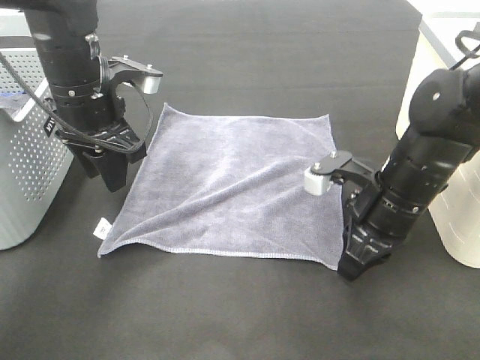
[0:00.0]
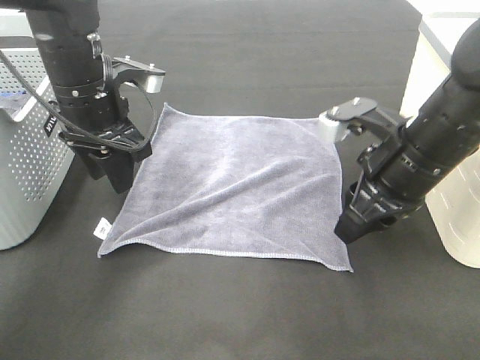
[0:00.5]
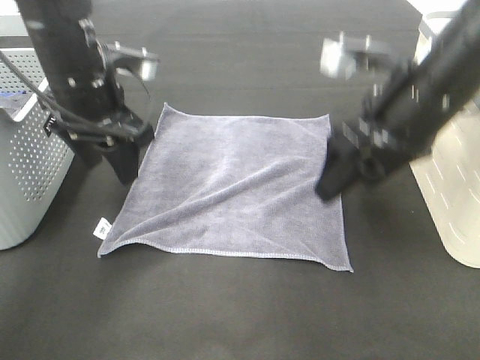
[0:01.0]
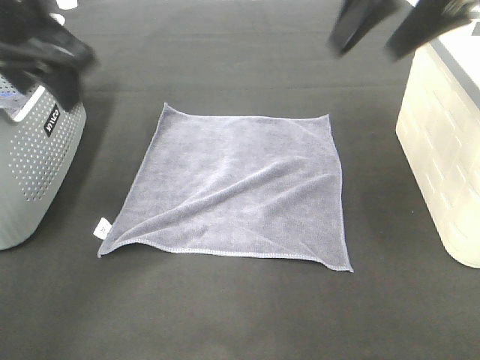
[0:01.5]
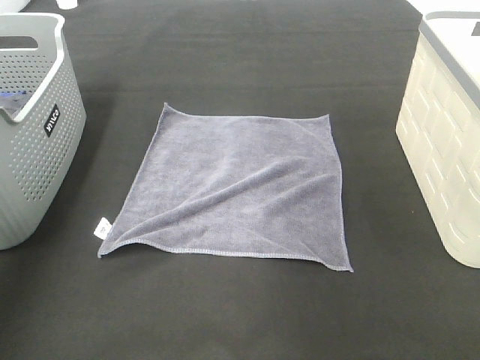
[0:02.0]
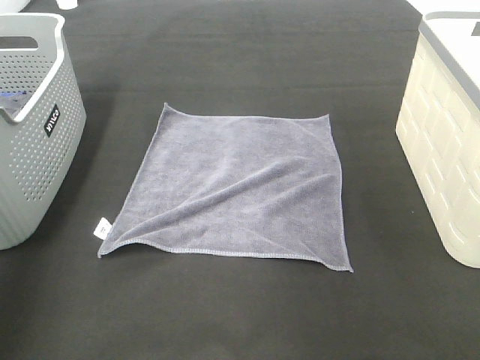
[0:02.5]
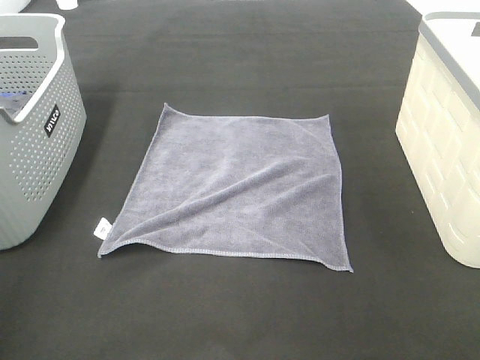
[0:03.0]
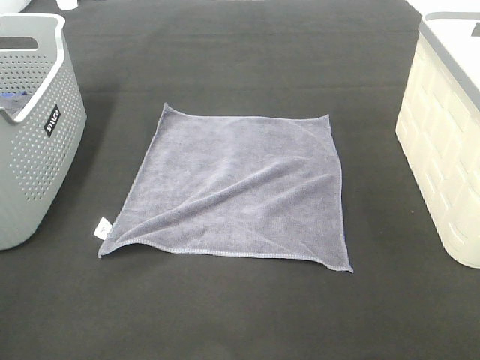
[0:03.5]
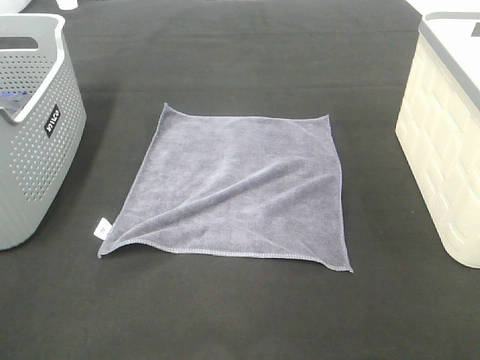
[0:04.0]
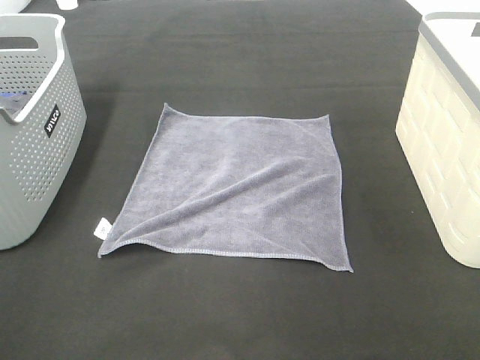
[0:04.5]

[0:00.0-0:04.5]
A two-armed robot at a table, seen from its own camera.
Task of the whole recording: Remove the towel and place it.
0:00.0 to 0:02.0: The right gripper moves upward, approximately 30 cm, and opens its fingers. The left gripper travels upward, to the left and backward by approximately 30 cm.
0:02.0 to 0:04.5: The left gripper travels backward by approximately 30 cm. The right gripper shifts roughly 30 cm backward and downward.

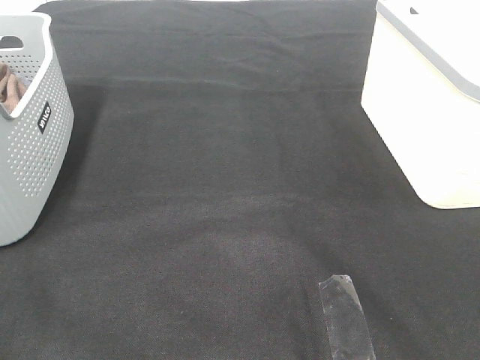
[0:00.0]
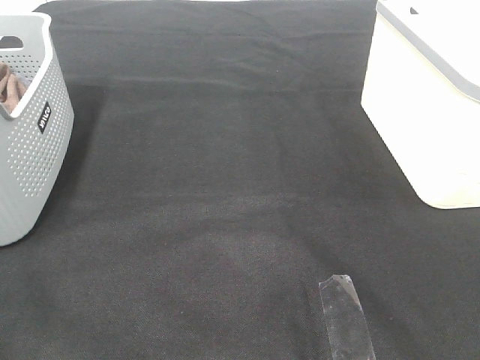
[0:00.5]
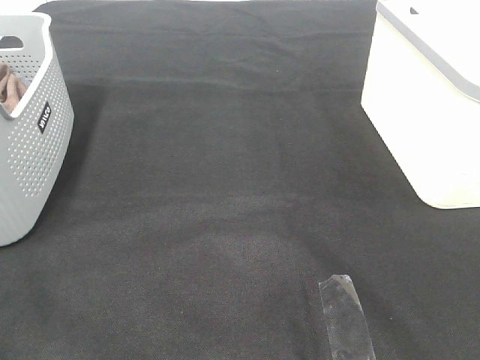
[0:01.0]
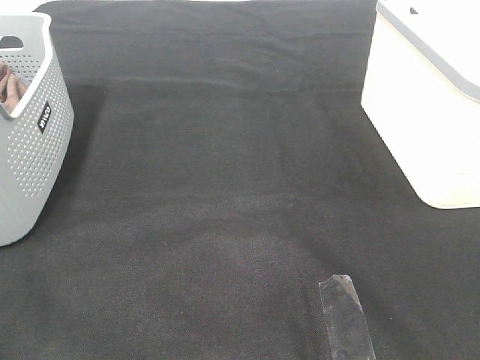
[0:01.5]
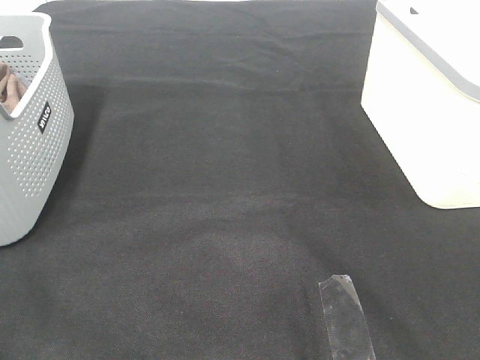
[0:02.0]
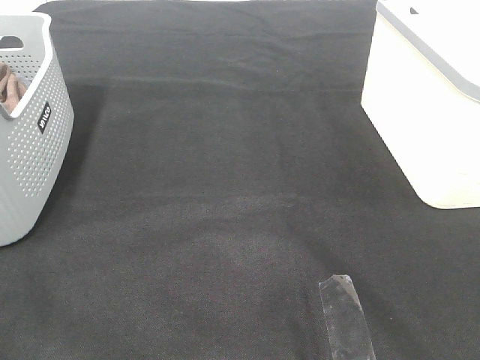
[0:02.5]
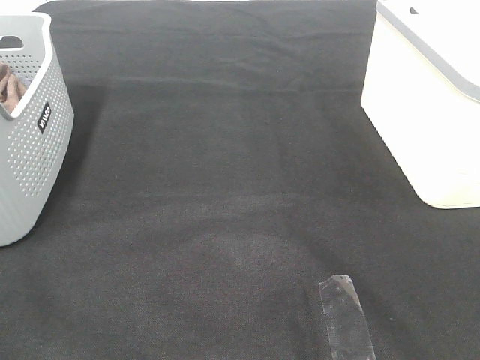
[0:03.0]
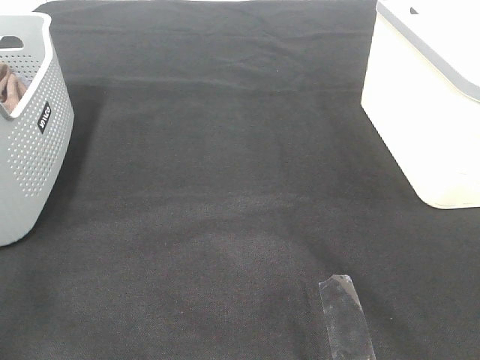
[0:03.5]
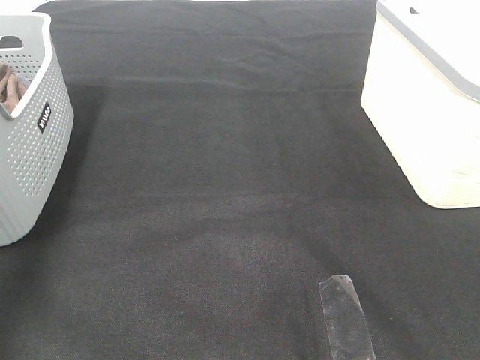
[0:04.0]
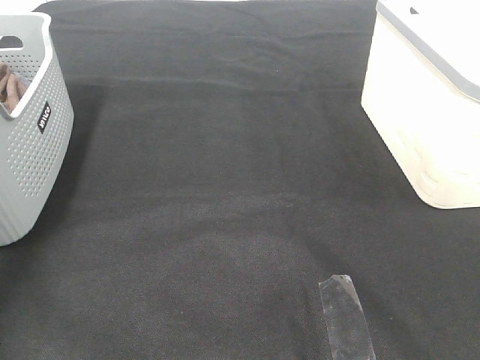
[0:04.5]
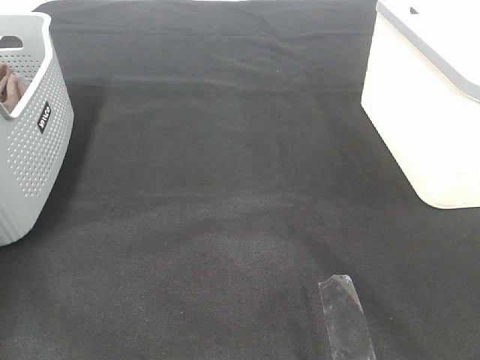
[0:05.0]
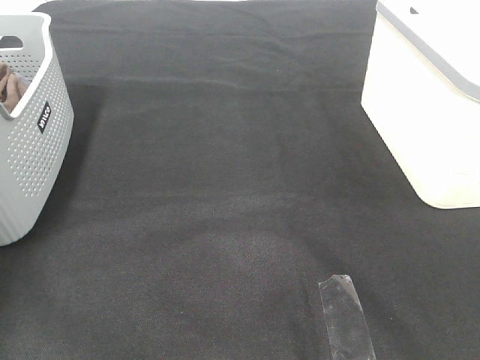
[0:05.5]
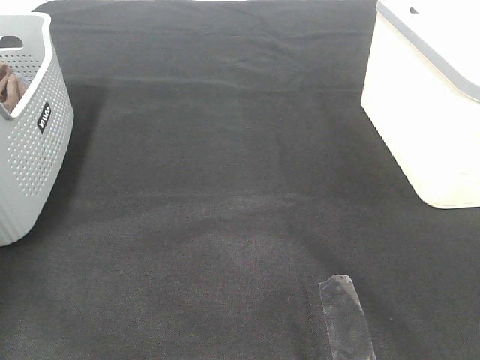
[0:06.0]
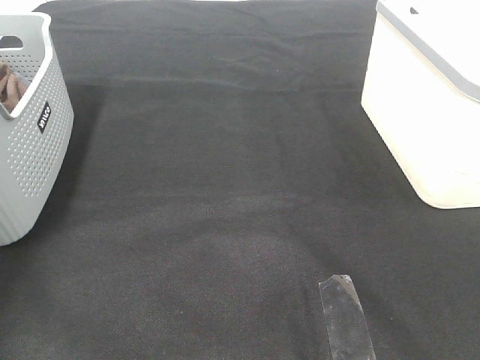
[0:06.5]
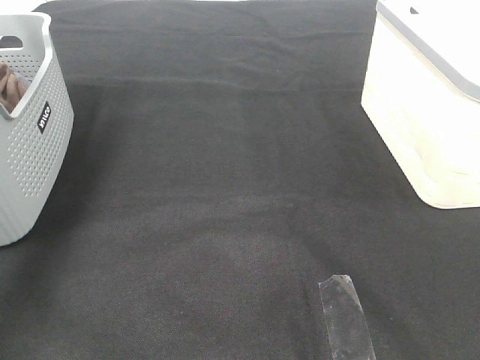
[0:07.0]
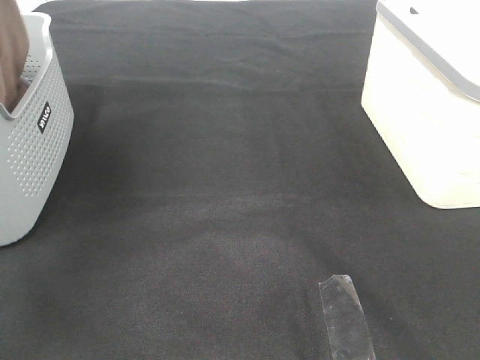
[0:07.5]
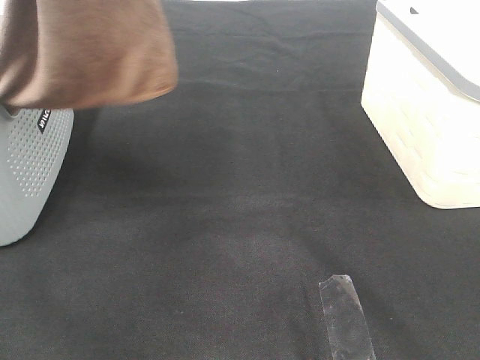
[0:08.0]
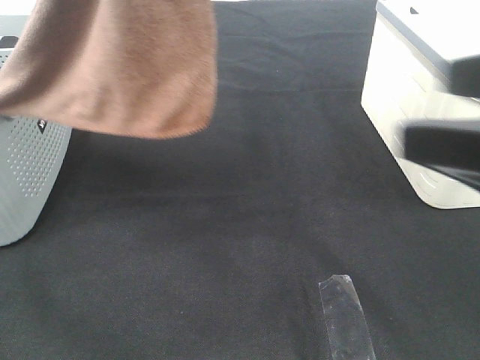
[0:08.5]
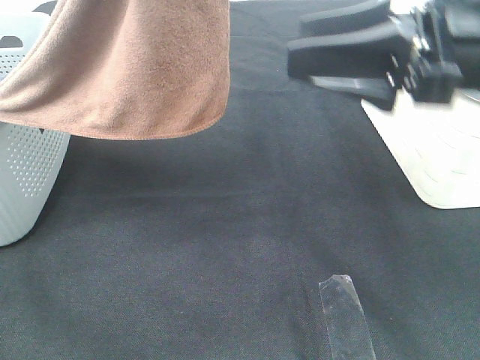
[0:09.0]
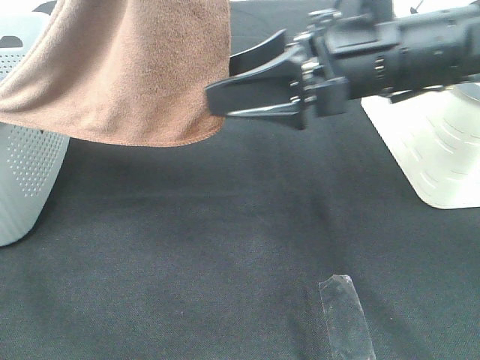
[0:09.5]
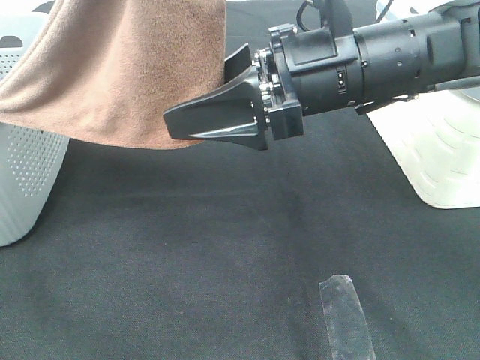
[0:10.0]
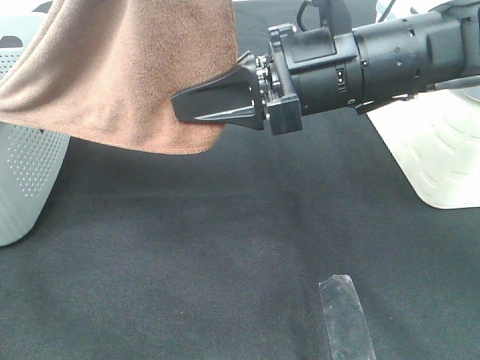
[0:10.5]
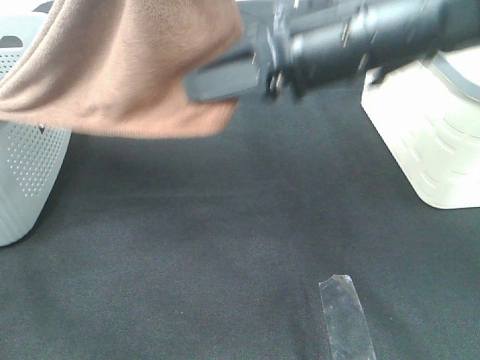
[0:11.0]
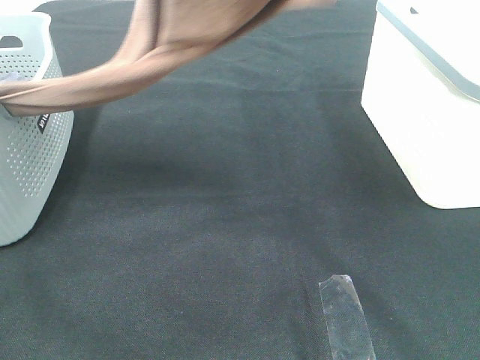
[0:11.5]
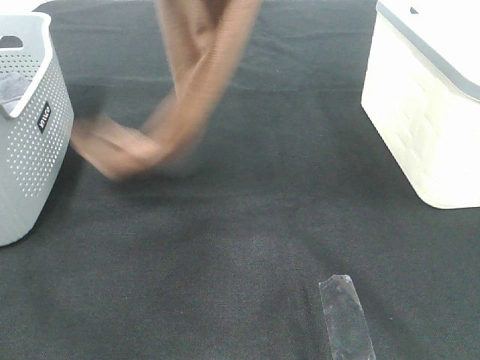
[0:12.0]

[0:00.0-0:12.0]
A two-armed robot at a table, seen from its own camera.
Task of the whole recording: Remove the towel and place it.
Step, 0:08.0 to 0:10.5: Right hand: grab a corner of the brown towel and straighten it.
0:00.0 to 0:02.0: Both grippers stay put.
0:02.0 to 0:04.0: The left gripper shifts approximately 25 cm forward and upward.
0:06.0 to 0:08.0: The left gripper moves upward, to the right and backward, approximately 40 cm.
0:08.0 to 0:10.0: The right gripper is displaced forward and to the left by roughly 30 cm, while the left gripper heads to the right, covering roughly 5 cm.
0:10.0 to 0:12.0: The right gripper travels upward by about 25 cm, and closes up. The left gripper heads to the left, covering approximately 5 cm.

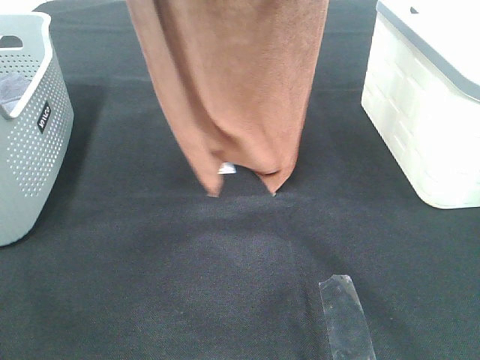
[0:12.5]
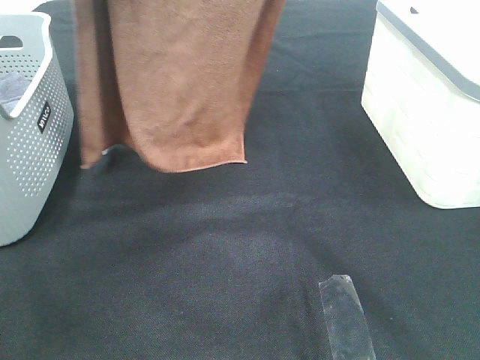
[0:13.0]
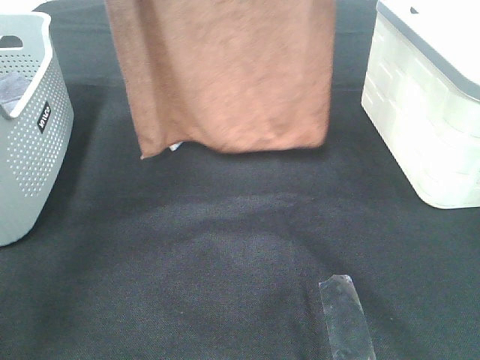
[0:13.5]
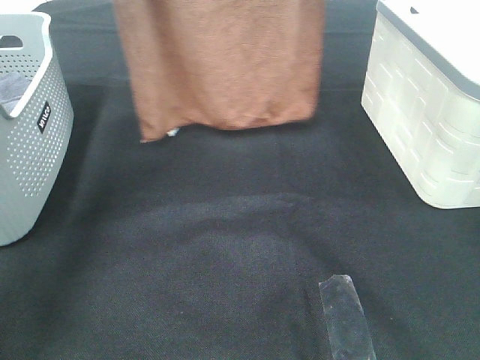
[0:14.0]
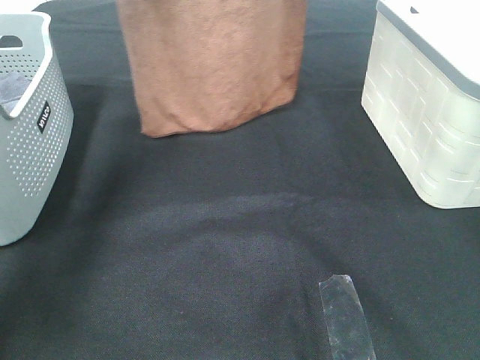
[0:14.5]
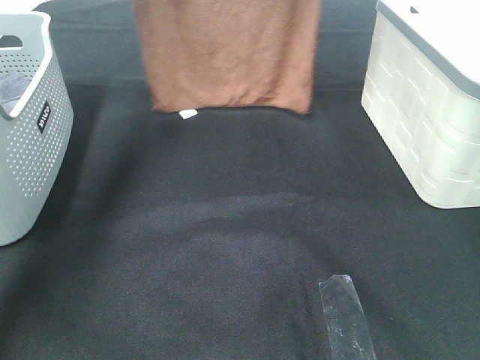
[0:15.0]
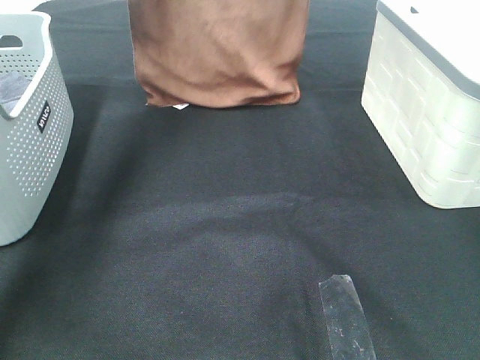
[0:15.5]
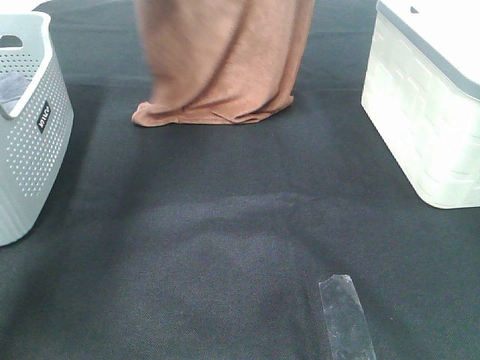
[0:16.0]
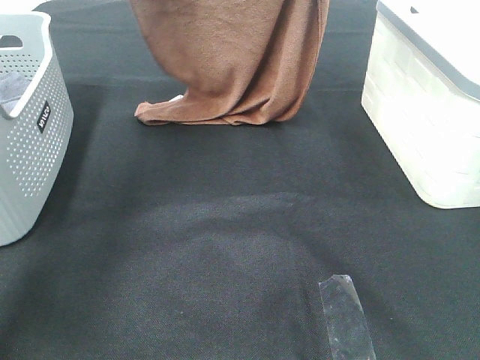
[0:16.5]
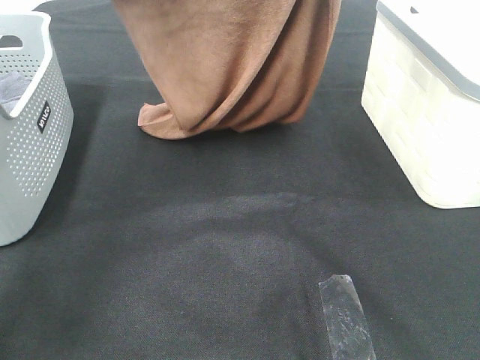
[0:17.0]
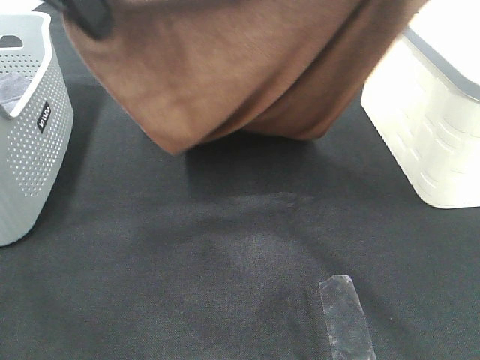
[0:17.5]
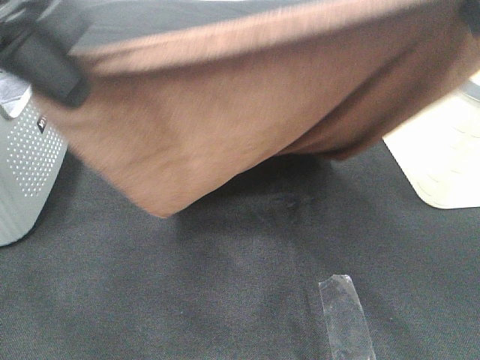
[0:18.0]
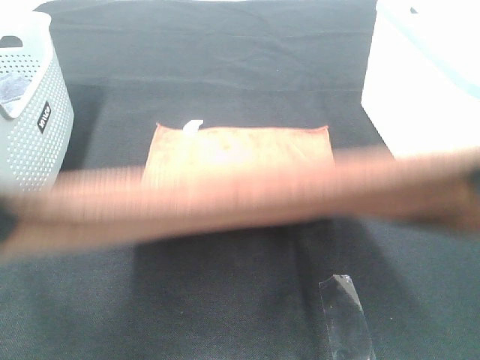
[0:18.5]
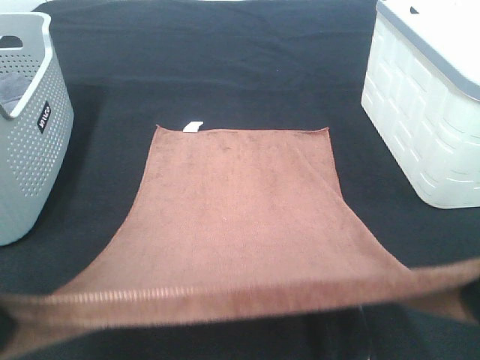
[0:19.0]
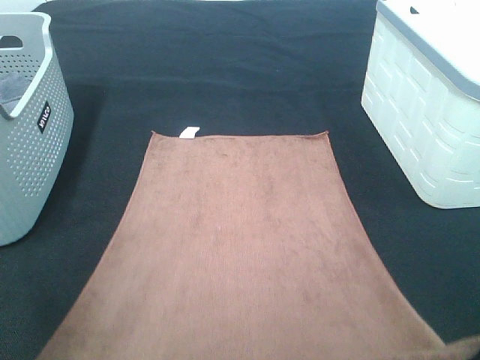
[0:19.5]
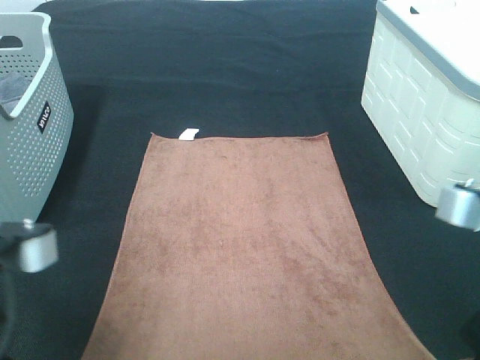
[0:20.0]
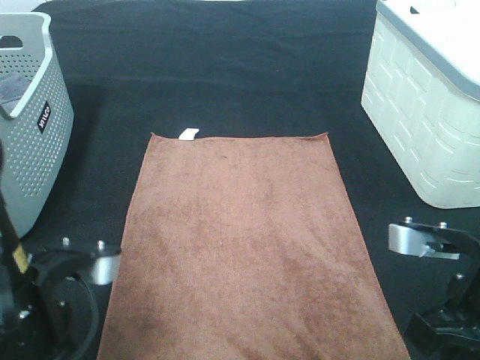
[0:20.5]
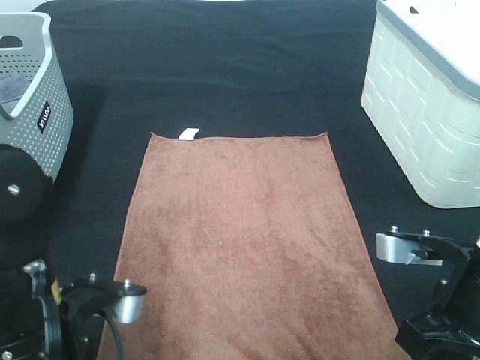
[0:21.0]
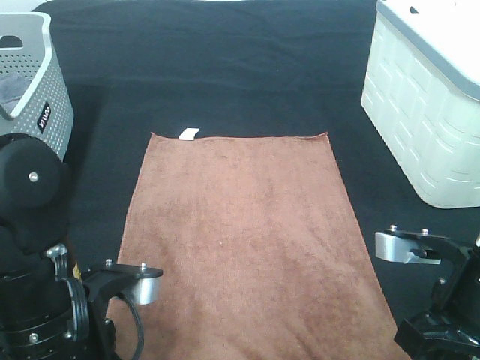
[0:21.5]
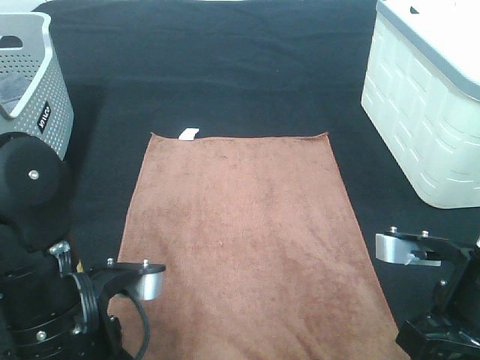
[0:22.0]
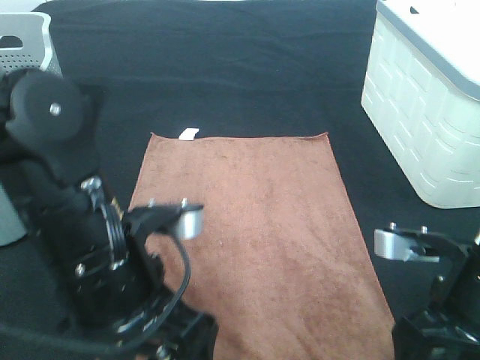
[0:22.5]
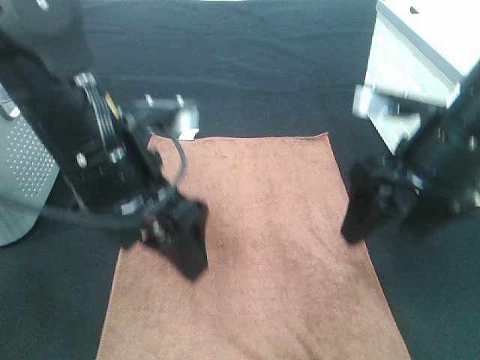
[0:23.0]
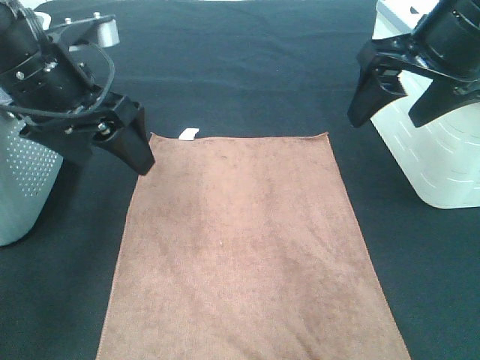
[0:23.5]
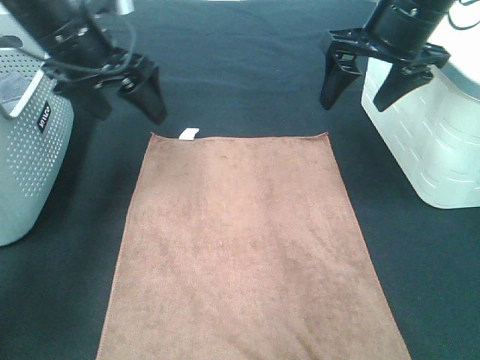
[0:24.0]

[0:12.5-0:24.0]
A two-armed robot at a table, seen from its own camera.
Task of the whole recording: Remove the towel and place it.
Step, 0:12.5 to 0:17.5: Left hand: spread the brown towel flat on the table.
Step, 0:12.5 to 0:17.5: Right hand: spread the brown towel flat on the table.
0:12.5 to 0:14.5: The two grippers go roughly 15 cm forward.
0:14.5 to 0:16.5: The left gripper goes roughly 5 cm downward; the right gripper ends up about 5 cm from where it was.
0:16.5 to 0:18.5: The grippers both shift backward by about 30 cm.
0:18.5 to 0:20.0: Both grippers move downward, roughly 15 cm.
0:20.0 to 0:22.0: The right gripper heads downward, covering approximately 10 cm, and opens up. The left gripper heads downward and to the right, covering approximately 10 cm, and opens.
0:22.0 to 0:24.0: The right gripper is displaced forward and upward by some 25 cm. The left gripper shifts about 25 cm forward.
